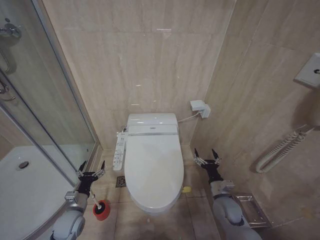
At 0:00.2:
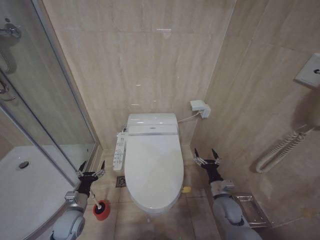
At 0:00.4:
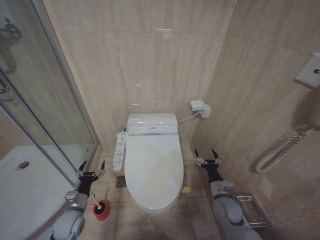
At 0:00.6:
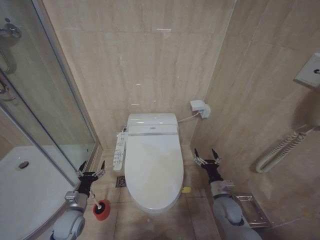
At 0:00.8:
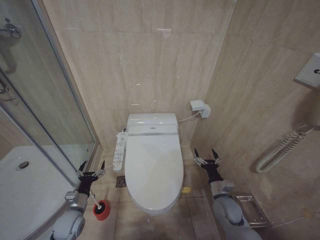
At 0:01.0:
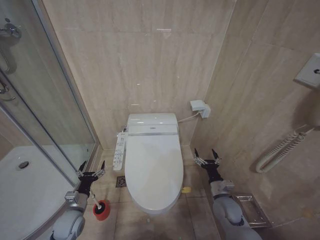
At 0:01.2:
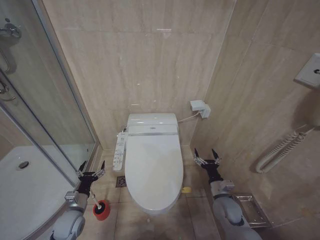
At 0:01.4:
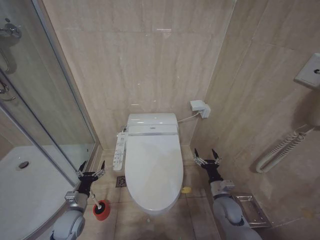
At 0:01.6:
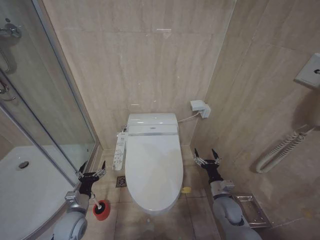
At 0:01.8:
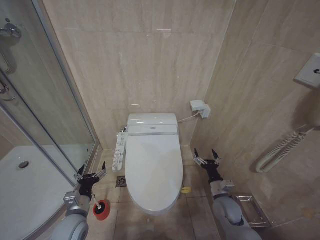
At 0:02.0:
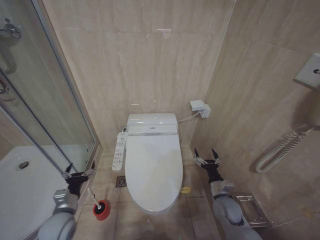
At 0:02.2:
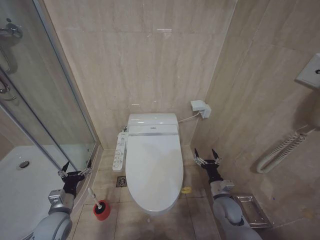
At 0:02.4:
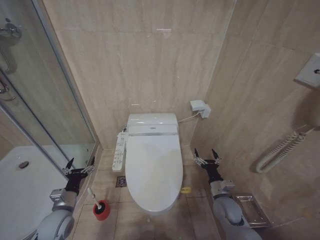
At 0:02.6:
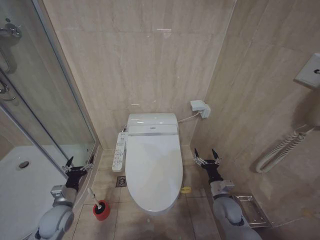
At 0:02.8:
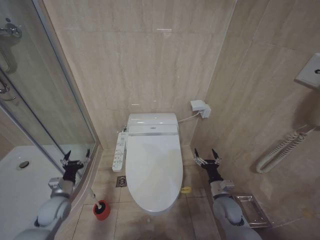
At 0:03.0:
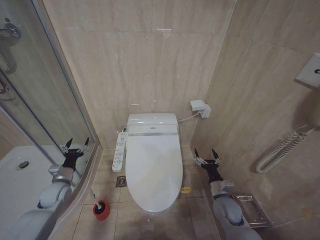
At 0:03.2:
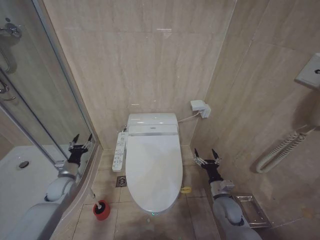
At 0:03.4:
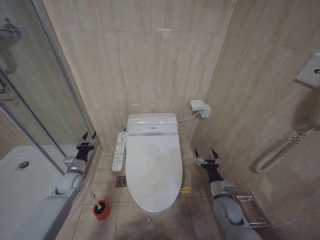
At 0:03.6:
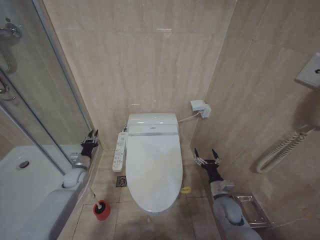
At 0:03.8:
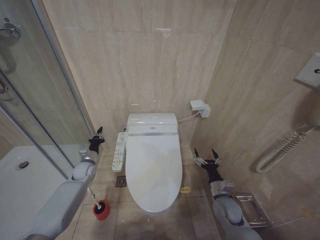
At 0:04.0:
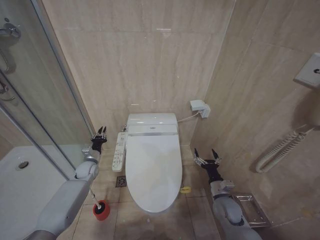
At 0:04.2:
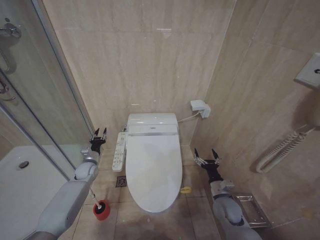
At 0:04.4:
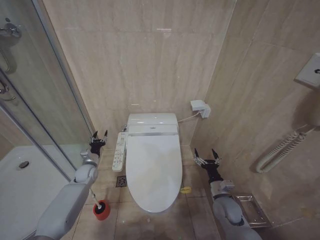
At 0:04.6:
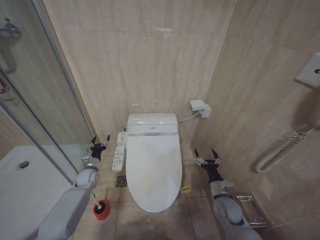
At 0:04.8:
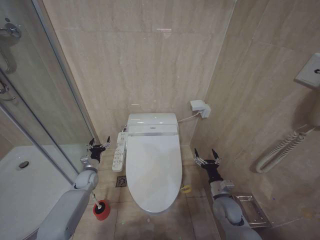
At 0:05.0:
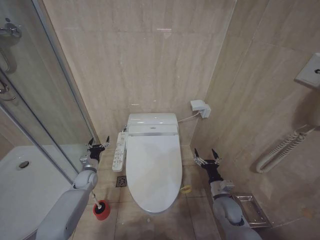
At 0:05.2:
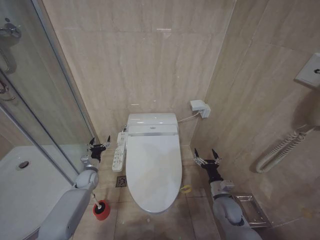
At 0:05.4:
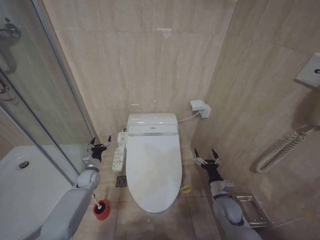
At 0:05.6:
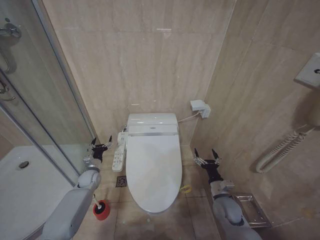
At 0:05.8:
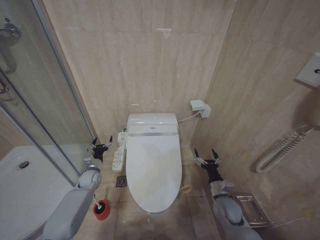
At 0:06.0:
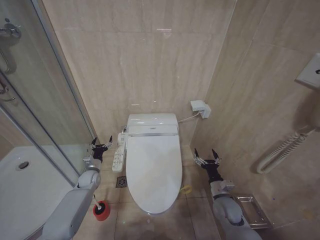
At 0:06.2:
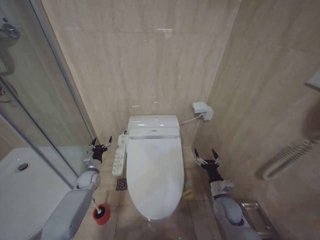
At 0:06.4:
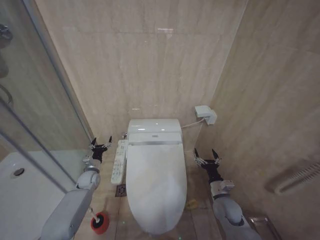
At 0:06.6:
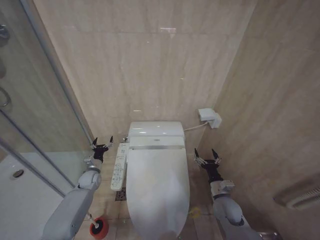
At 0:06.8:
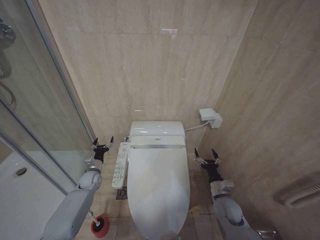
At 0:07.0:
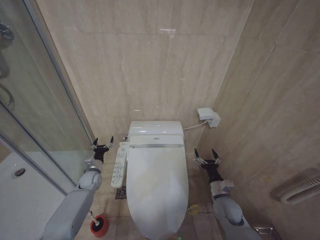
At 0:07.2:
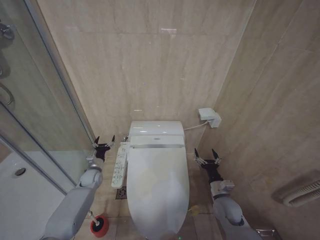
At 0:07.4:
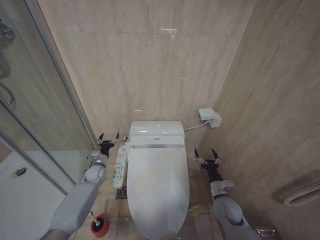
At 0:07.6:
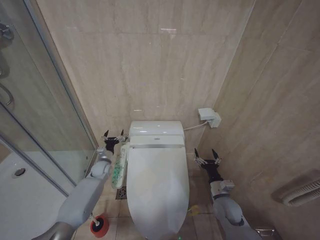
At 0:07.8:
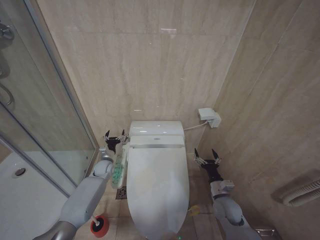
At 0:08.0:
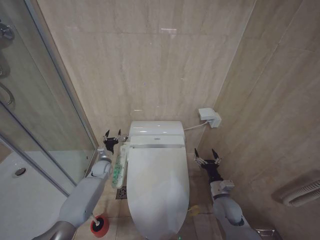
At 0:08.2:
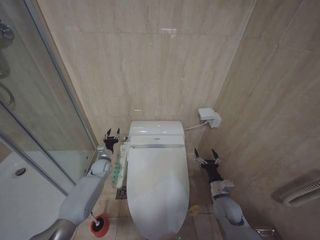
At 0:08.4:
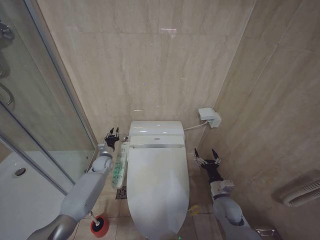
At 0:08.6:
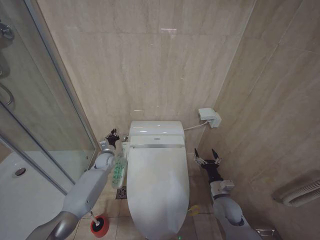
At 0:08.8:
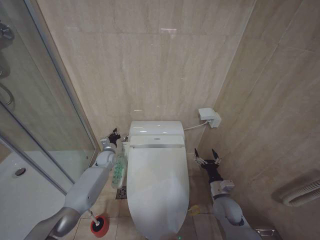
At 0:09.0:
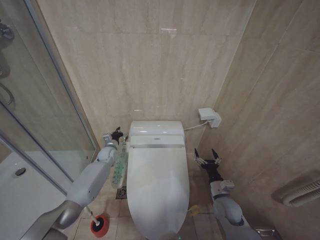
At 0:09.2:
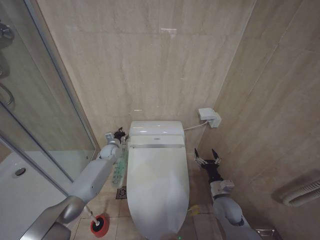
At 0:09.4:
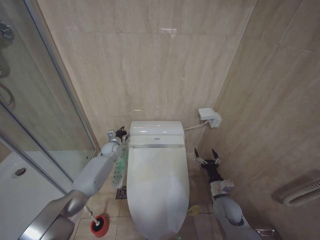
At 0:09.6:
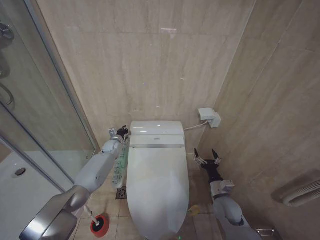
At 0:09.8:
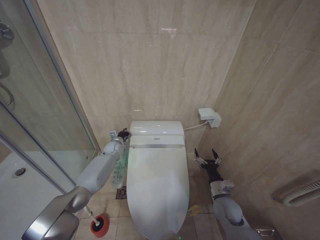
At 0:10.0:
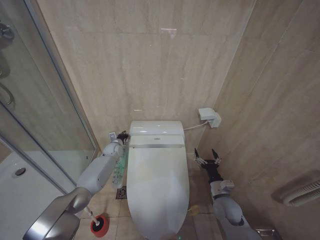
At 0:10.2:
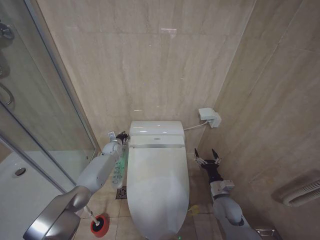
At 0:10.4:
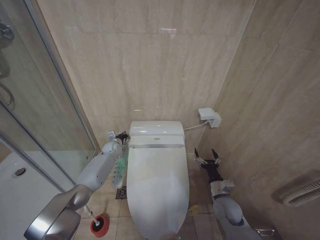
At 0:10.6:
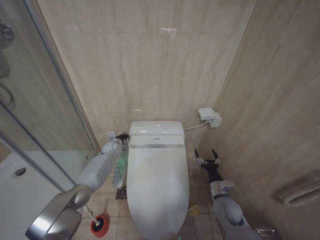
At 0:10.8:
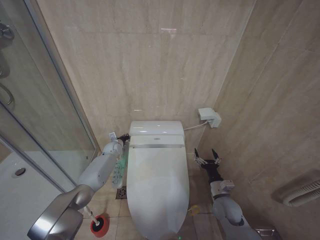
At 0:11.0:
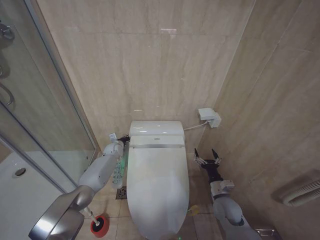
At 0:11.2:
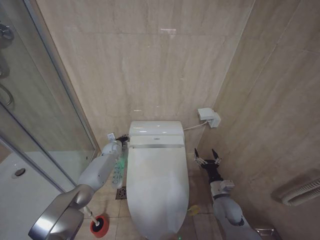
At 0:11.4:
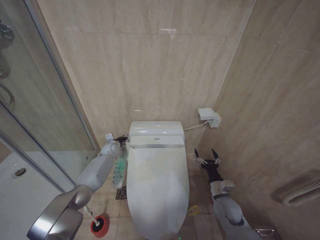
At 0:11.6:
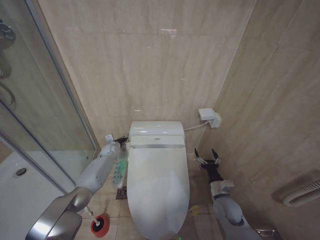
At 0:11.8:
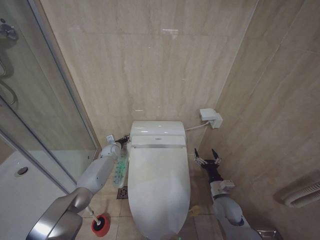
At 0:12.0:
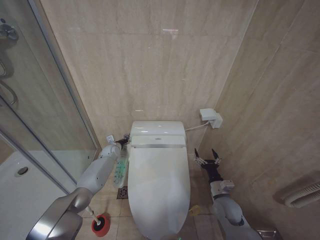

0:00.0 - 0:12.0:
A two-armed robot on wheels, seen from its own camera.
Task of the whole recording: Open the toilet lid, clean the toilet bowl with a toilet brush, close the toilet lid, and flush.
0:01.6 - 0:03.0: The left gripper moves to the left and forward, some 10 cm.
0:03.0 - 0:04.4: The left gripper travels forward and to the right by about 15 cm, and closes its fingers.
0:04.4 - 0:06.0: The left gripper opens up.
0:06.0 - 0:07.6: The left gripper is displaced to the right by about 5 cm.
0:07.6 - 0:09.0: The left gripper shifts by approximately 5 cm, and closes.
0:09.0 - 0:10.4: The grippers move only a little.
0:10.4 - 0:12.0: The grippers stay close to where they were, moving slightly.

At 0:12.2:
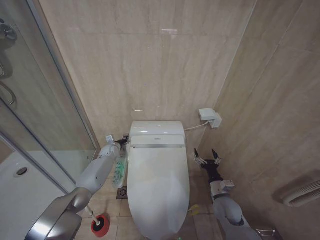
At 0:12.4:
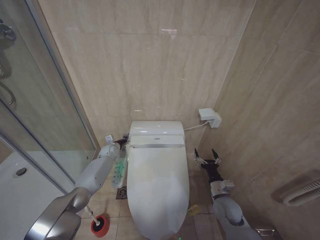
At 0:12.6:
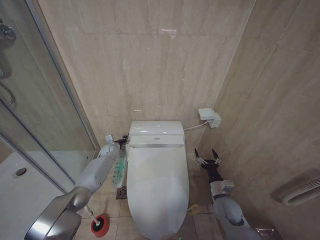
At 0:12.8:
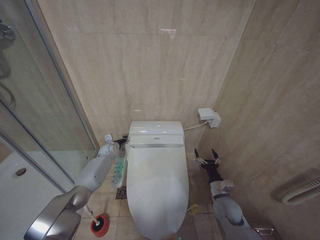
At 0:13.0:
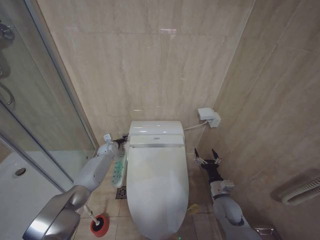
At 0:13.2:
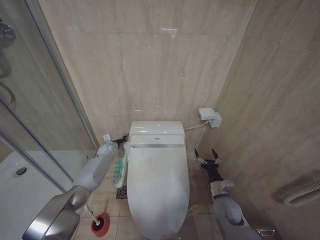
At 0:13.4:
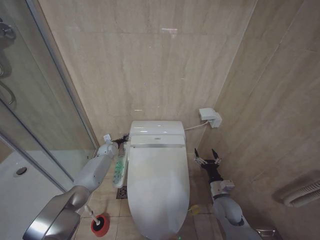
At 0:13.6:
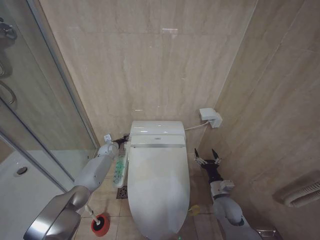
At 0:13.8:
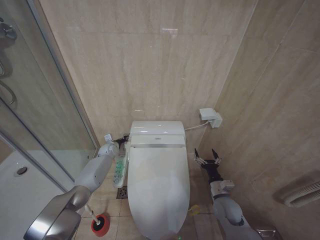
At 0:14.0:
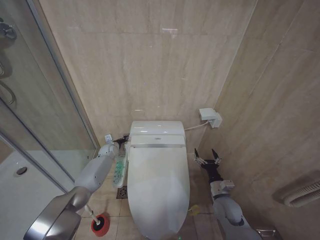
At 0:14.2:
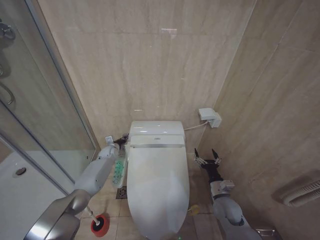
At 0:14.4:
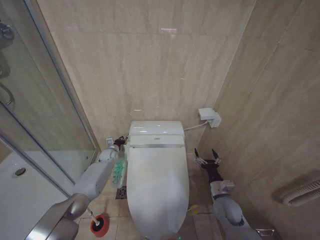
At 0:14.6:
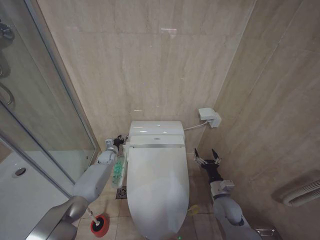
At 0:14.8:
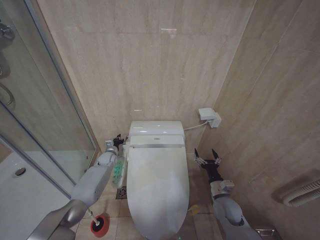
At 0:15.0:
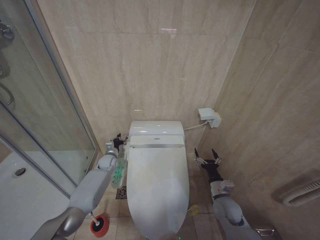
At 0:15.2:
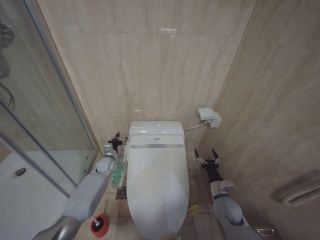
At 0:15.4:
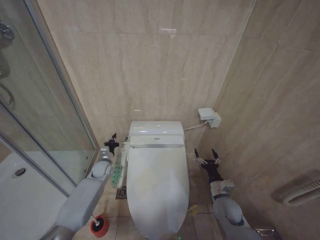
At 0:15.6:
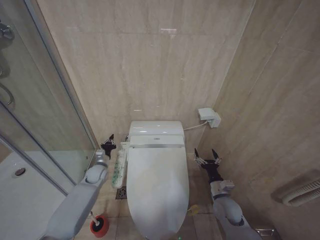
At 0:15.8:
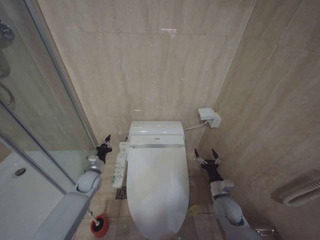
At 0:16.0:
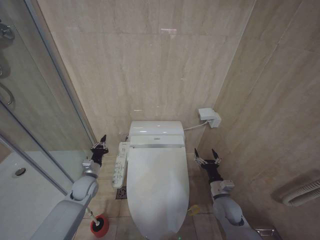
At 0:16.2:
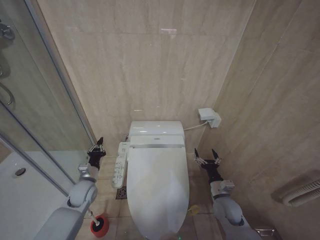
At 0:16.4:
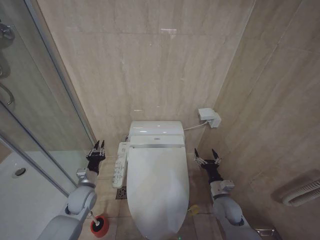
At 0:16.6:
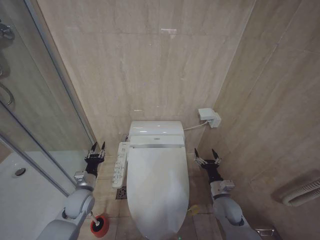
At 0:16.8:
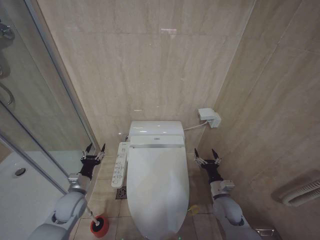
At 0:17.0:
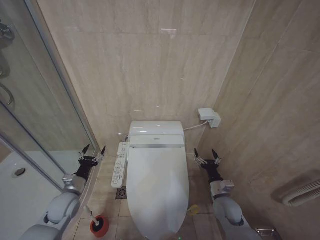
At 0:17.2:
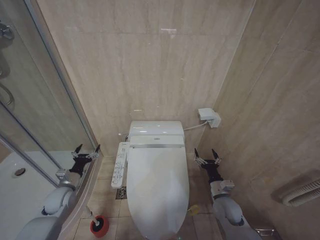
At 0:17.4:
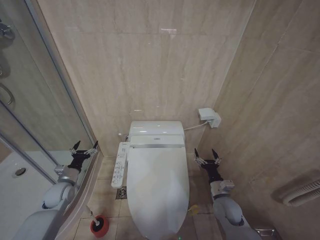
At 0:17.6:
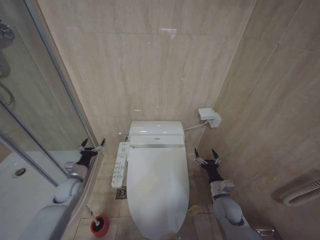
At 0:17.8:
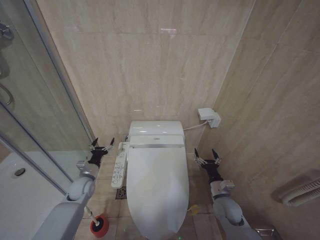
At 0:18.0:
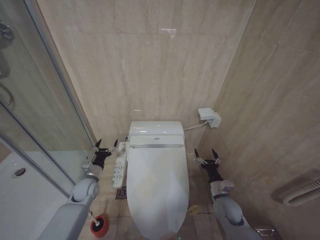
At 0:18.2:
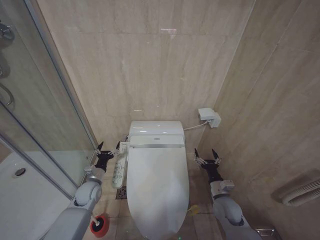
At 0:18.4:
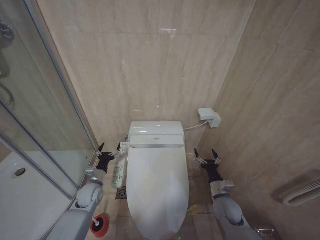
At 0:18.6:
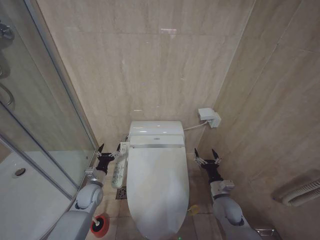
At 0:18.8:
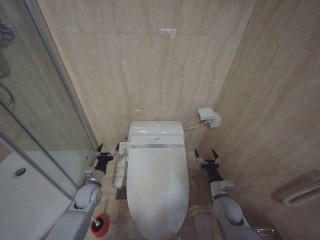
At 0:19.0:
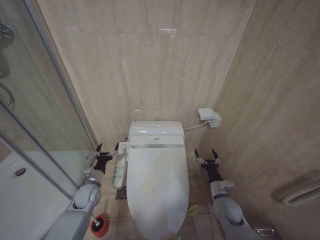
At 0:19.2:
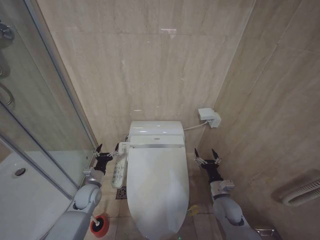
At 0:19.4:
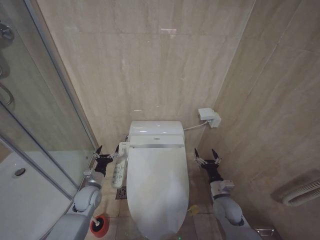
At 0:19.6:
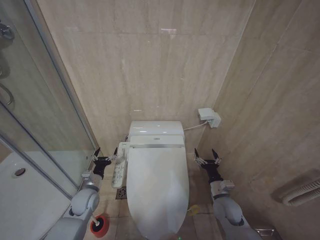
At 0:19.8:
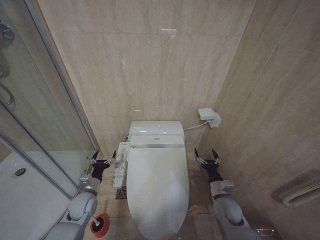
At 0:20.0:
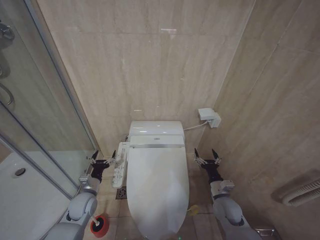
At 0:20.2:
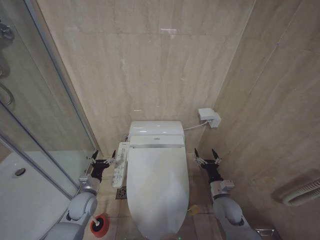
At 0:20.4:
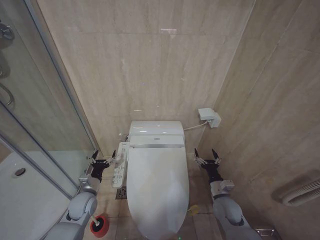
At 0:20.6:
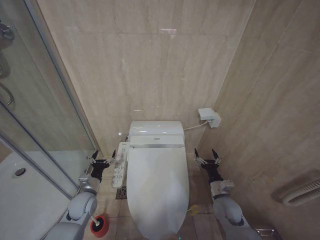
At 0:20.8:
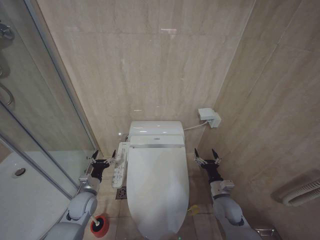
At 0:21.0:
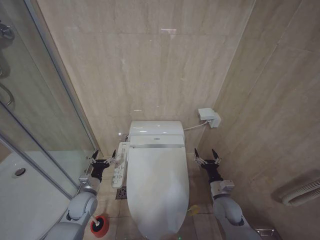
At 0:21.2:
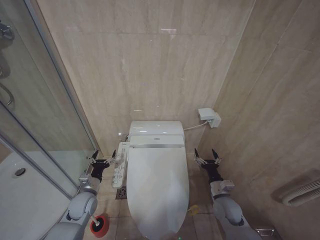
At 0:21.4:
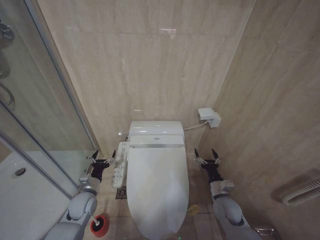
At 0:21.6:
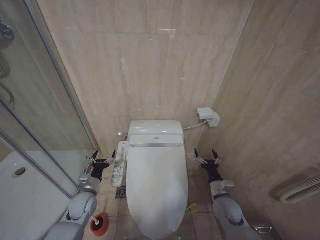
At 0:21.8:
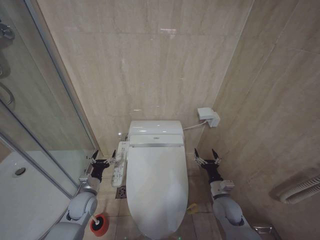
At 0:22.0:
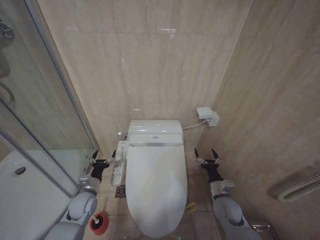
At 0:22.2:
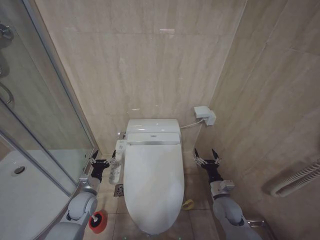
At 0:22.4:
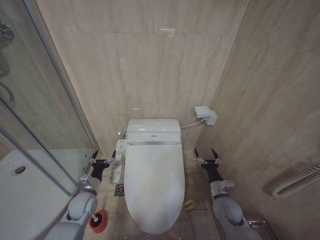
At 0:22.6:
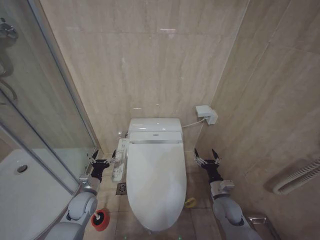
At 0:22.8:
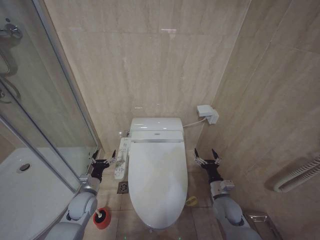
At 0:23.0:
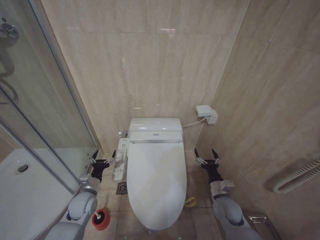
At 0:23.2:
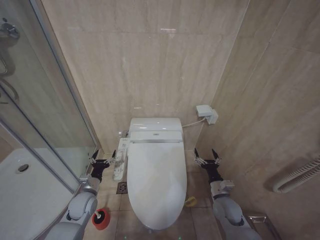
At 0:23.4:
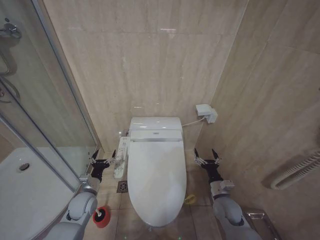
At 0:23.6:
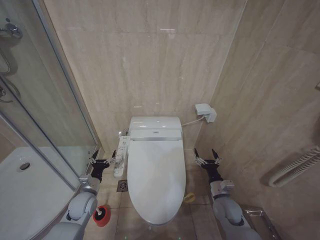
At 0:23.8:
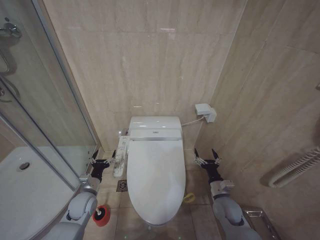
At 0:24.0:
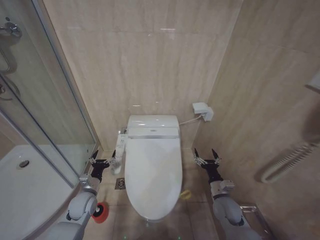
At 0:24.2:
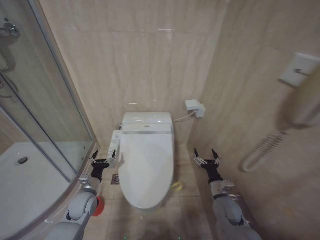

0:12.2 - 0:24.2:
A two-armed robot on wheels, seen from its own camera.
Task of the whole recording: Open the toilet lid, clean the toilet bowl with a toilet brush, close the toilet lid, and flush.
0:12.2 - 0:13.8: There are only small adjustments of the grippers.
0:13.8 - 0:15.2: The left gripper travels backward by about 5 cm.
0:15.2 - 0:16.6: The left gripper heads backward, covering about 20 cm.
0:16.6 - 0:18.2: The left gripper moves approximately 10 cm to the left and comes back, and opens its fingers.
0:18.2 - 0:19.8: The grippers move only a little.
0:19.8 - 0:24.2: Both grippers stay about where they are.
